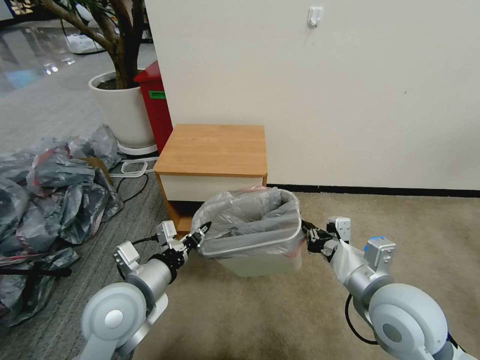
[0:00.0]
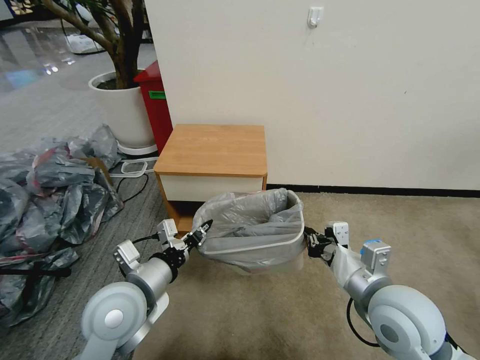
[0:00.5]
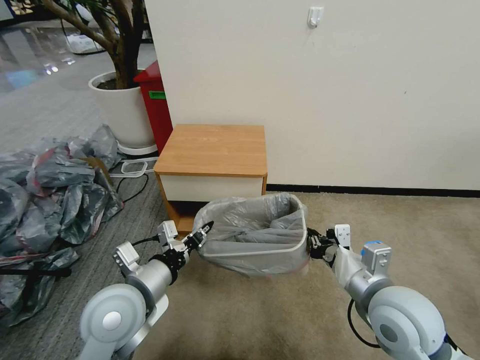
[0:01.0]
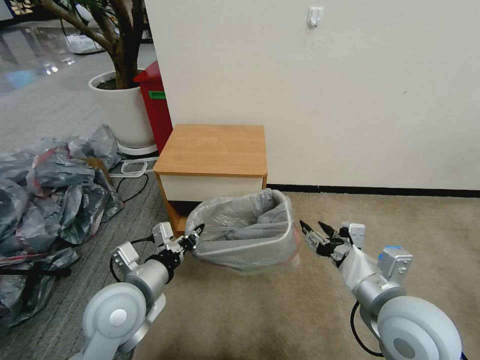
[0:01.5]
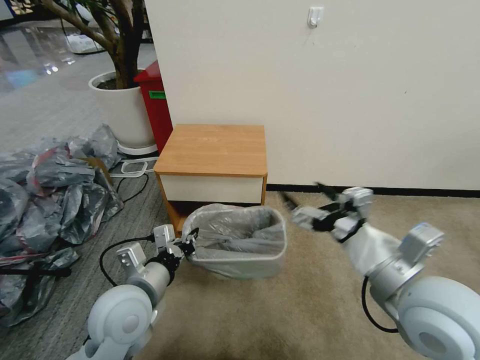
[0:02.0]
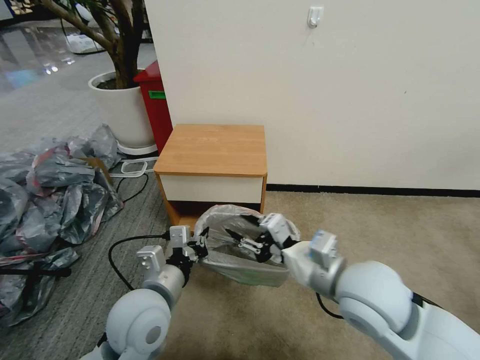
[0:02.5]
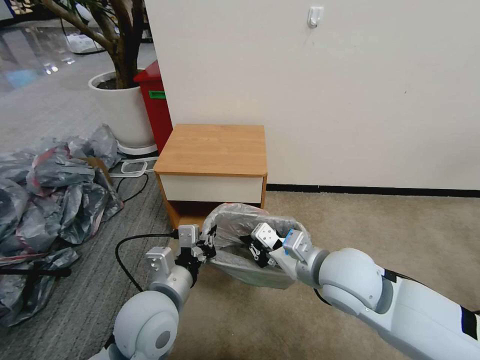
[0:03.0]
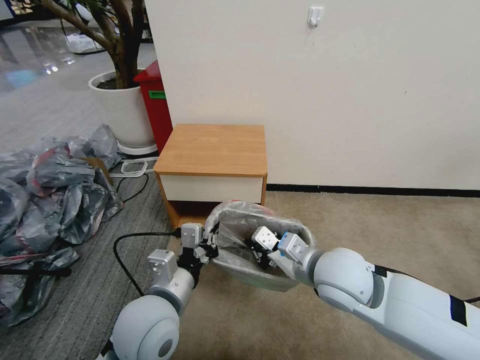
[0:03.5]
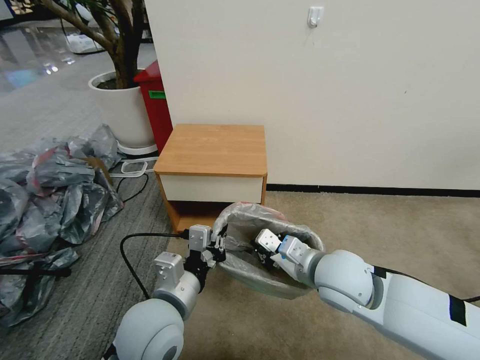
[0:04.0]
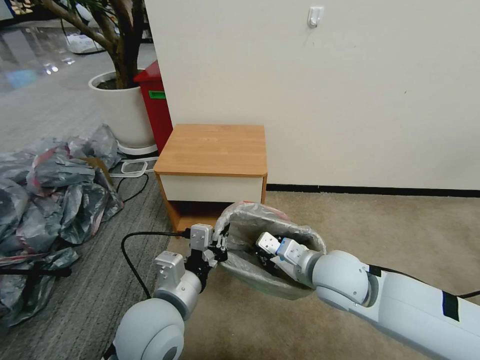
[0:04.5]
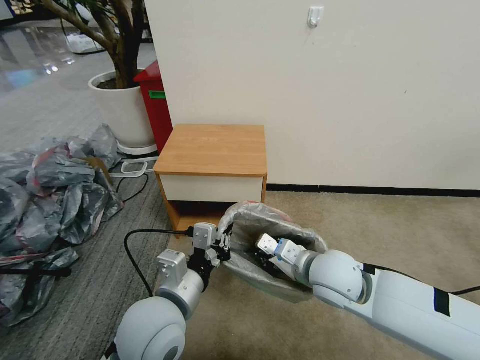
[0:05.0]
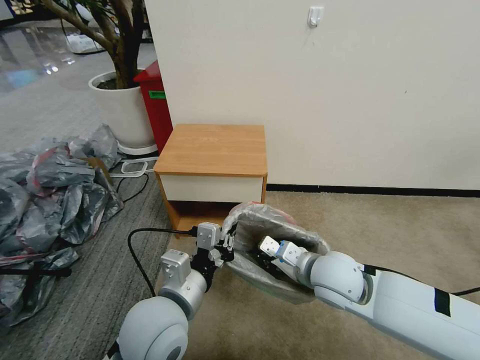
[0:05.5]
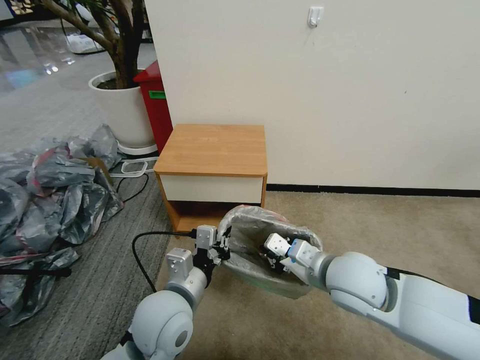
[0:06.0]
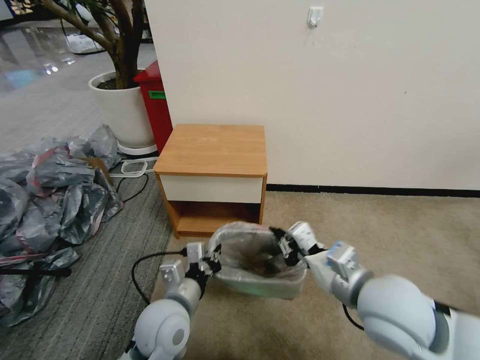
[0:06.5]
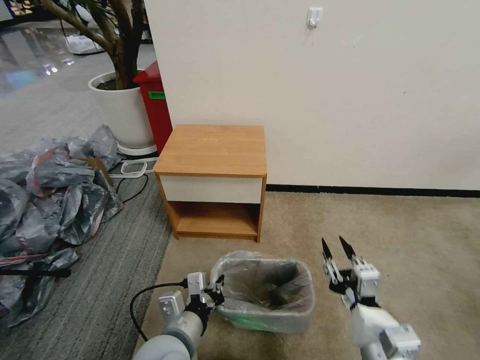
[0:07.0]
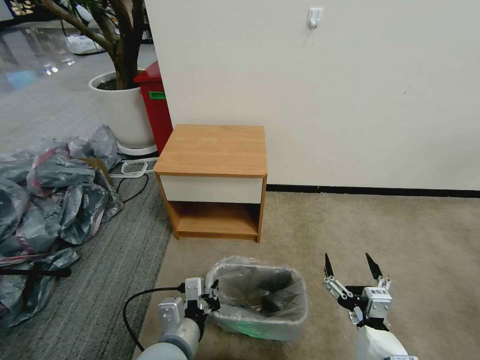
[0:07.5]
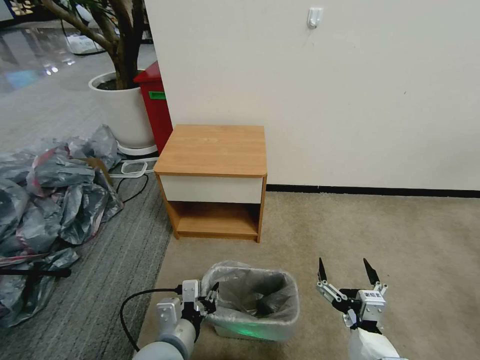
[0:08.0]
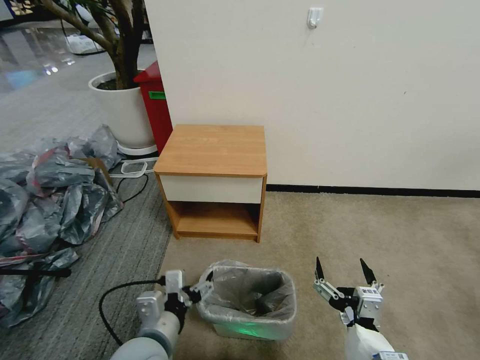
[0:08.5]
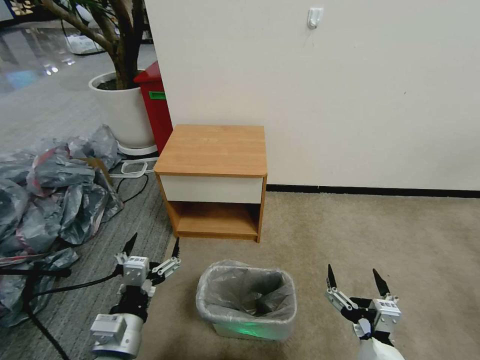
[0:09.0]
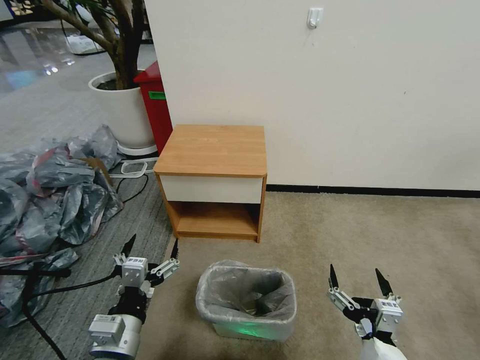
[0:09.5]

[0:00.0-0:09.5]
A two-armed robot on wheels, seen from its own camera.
Task of the whole recording: Pick up the garbage bag from the table and place it over the trash can.
0:00.0 to 0:02.0: The right gripper shifts approximately 5 cm upward, and opens its fingers.
0:02.0 to 0:04.0: The right gripper shifts about 15 cm downward, forward and to the left, and closes up; the left gripper goes some 5 cm to the right.
0:04.0 to 0:05.5: The grippers move only a little.
0:05.5 to 0:07.5: The right gripper goes approximately 20 cm backward, and opens up, while the left gripper is displaced downward by some 10 cm.
0:07.5 to 0:09.5: The left gripper shifts some 10 cm to the left, and opens up.
